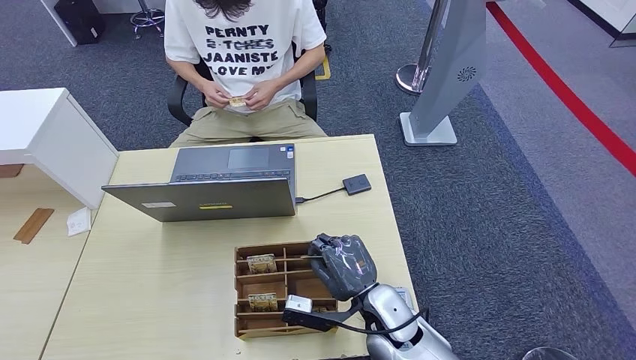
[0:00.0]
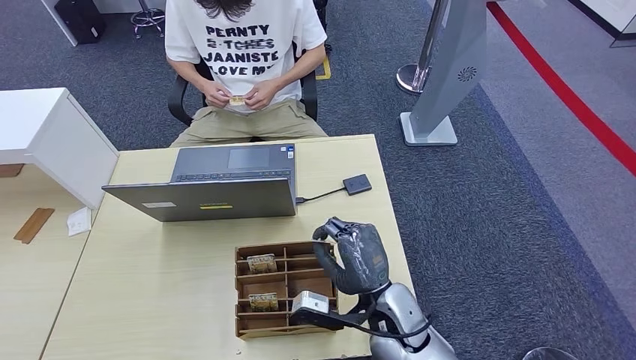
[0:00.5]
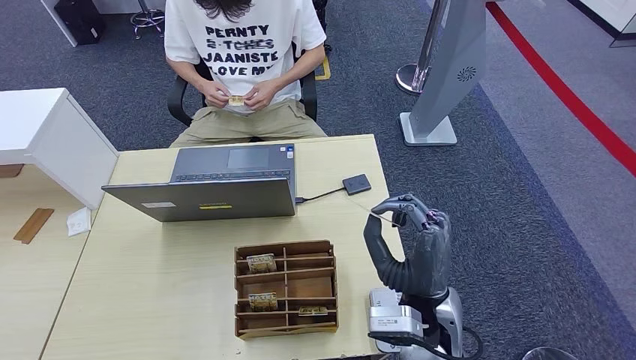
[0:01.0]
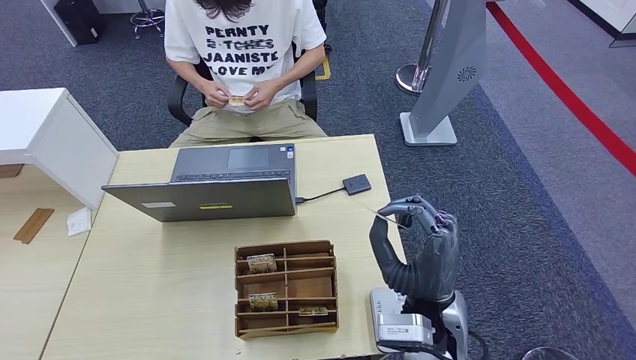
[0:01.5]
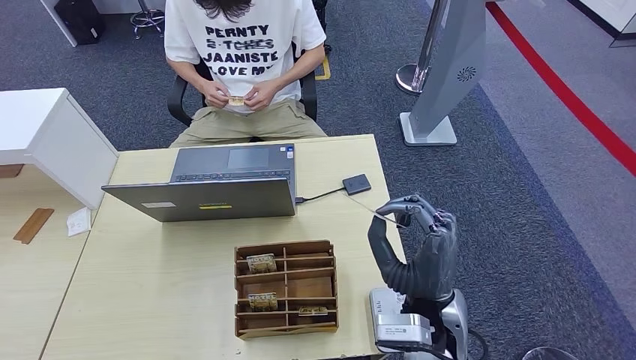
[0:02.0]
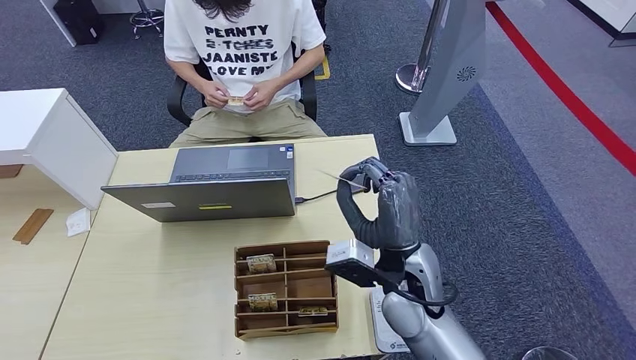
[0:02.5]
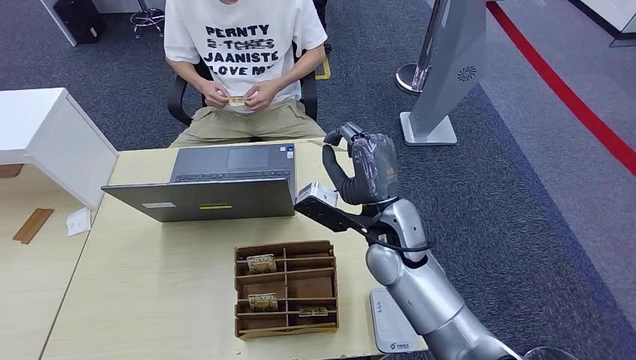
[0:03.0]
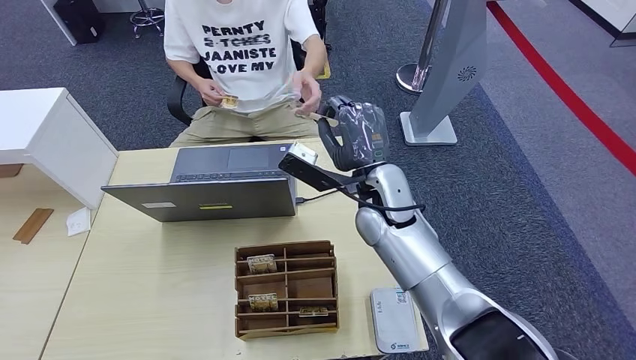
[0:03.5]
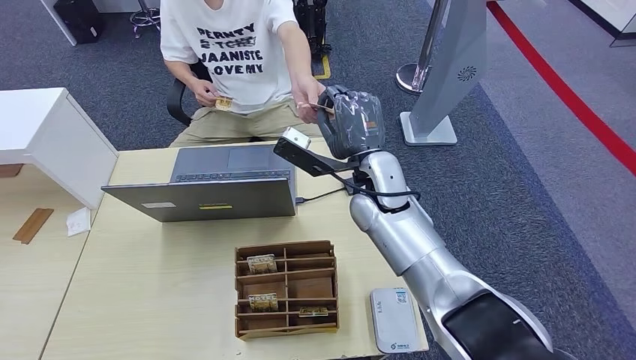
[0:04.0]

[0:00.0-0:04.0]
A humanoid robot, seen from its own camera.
Step, 0:00.5 to 0:04.0: Hand the room key to the person.
0:00.0 to 0:02.0: The right hand travels upward by roughly 10 cm.
0:02.0 to 0:04.0: The left hand shifts about 5 cm forward. Meanwhile the right hand shifts approximately 20 cm forward.
